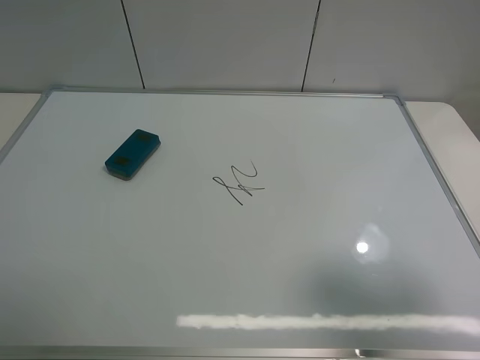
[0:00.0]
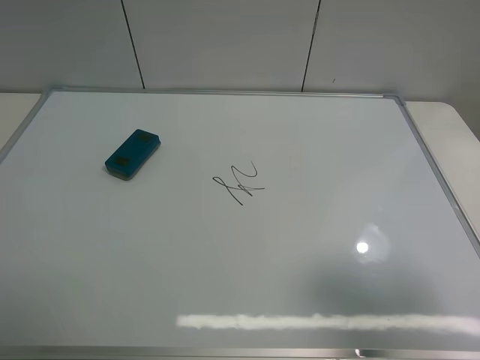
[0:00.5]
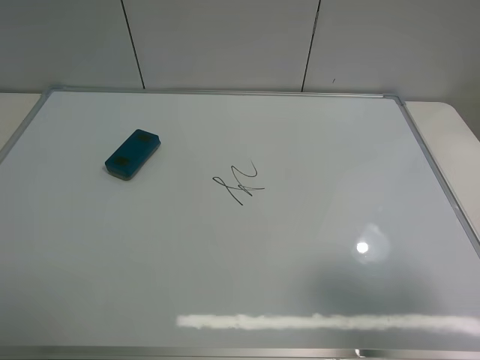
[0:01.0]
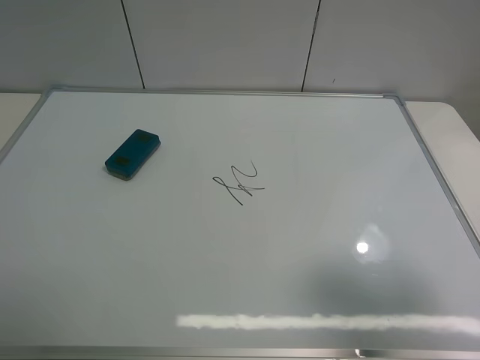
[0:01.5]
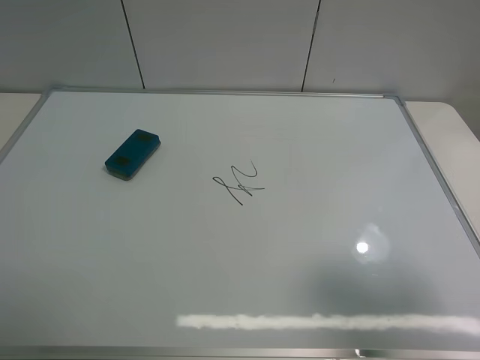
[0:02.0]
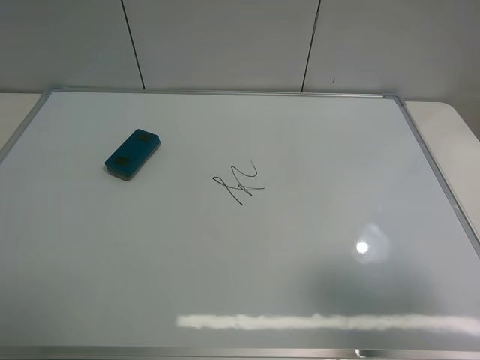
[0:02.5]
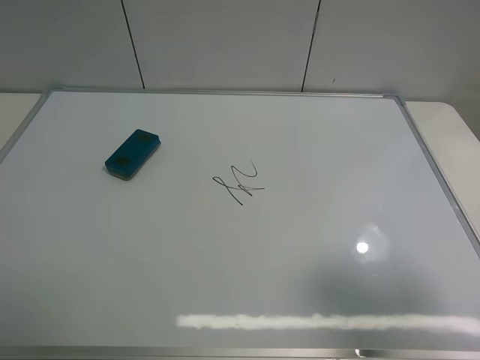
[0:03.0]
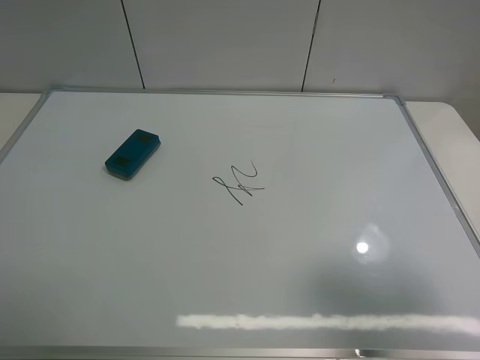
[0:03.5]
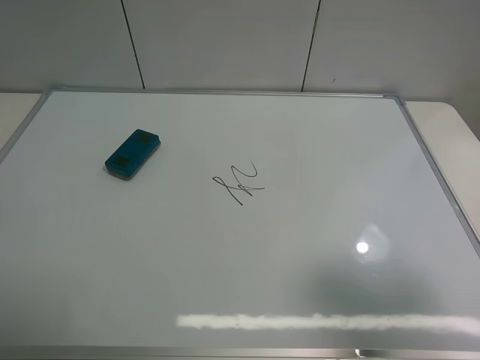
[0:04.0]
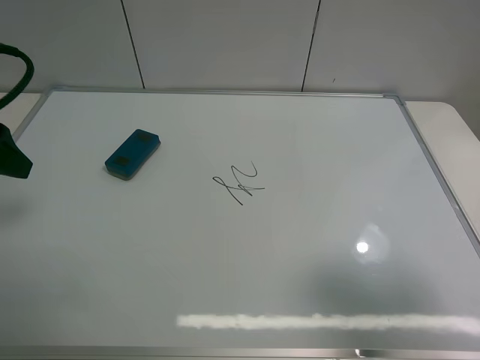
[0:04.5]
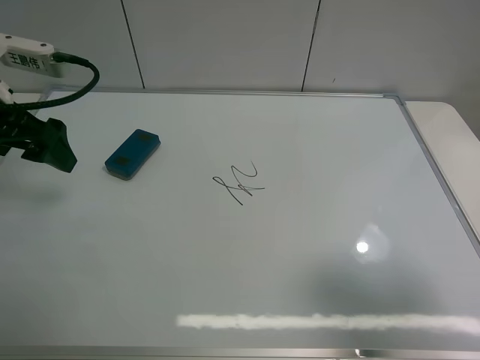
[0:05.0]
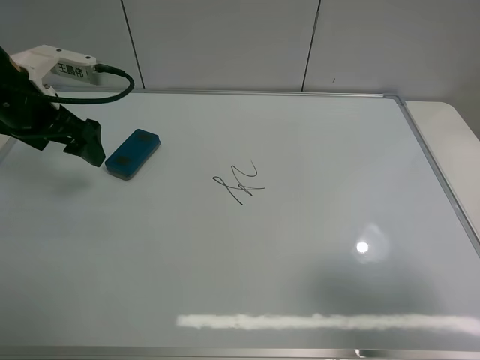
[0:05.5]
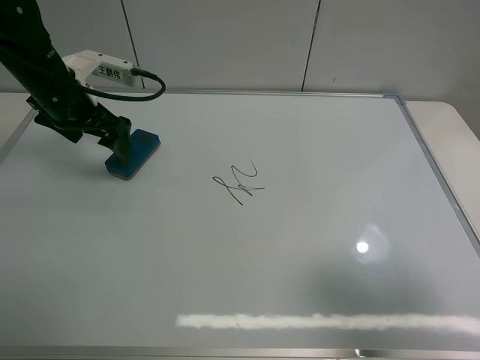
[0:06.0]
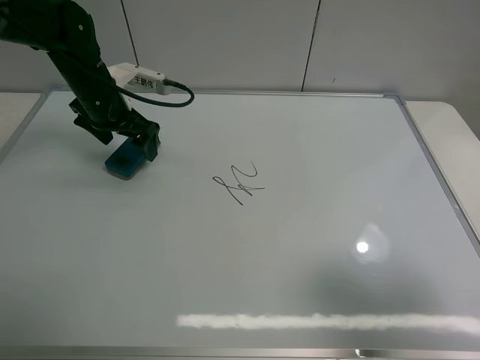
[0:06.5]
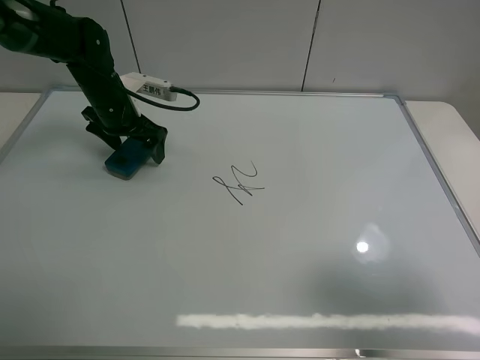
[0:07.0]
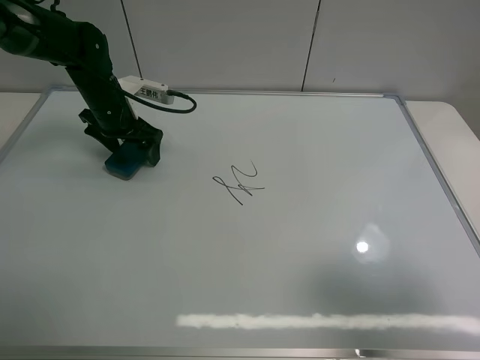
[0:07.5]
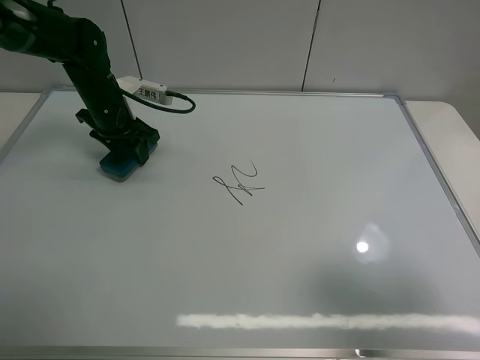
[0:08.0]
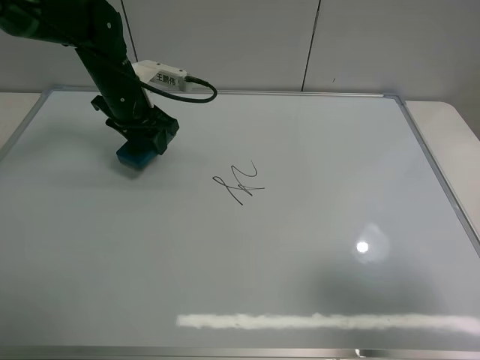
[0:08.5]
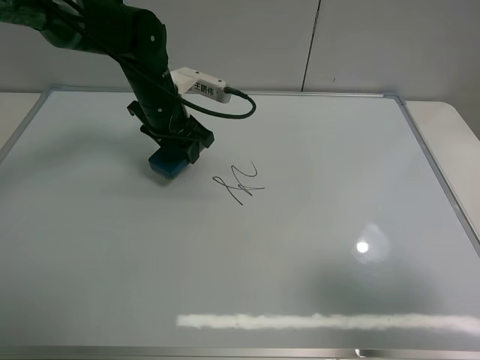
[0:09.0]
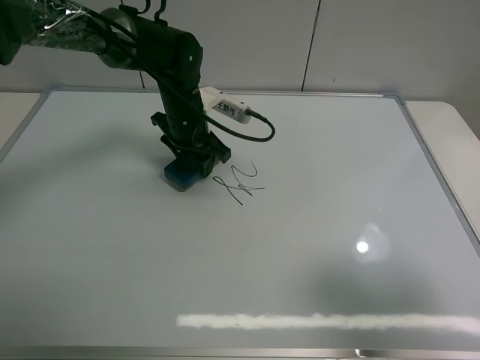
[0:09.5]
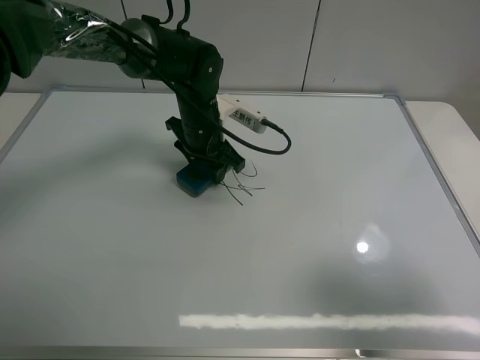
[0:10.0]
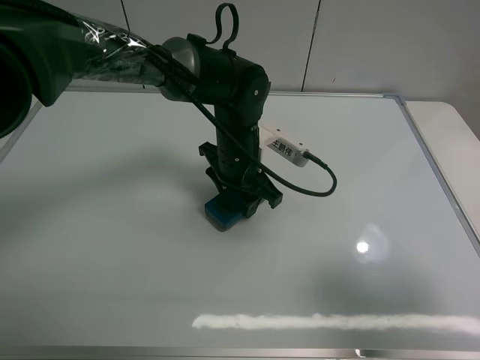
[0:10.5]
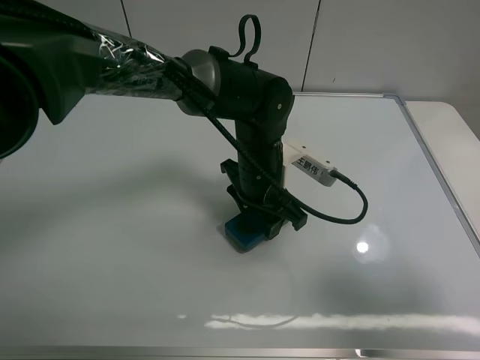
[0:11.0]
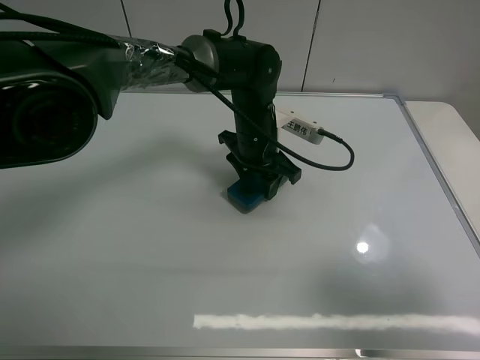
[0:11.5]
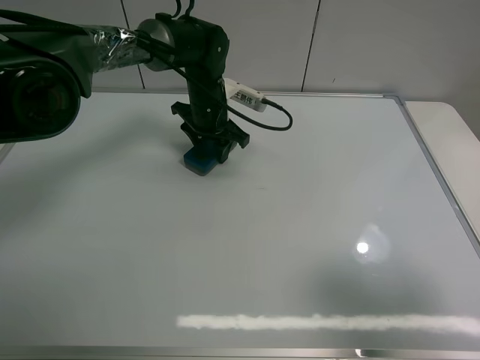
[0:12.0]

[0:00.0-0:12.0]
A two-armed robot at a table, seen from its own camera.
Task of the whole recording: use the left claw to pick up the whiteboard eraser, wipe the notes on the whiteboard clean, and then put them back in place.
Step, 0:00.0 to 0:07.5: Grasp the eraser with the left gripper.
0:00.0 to 0:02.0: The two grippers keep their place.
0:04.0 to 0:06.0: The left gripper moves forward and downward, roughly 25 cm.
0:06.0 to 0:08.0: The left gripper goes some 10 cm downward and forward, and closes its fingers.
0:08.0 to 0:10.0: The left gripper travels to the right by about 15 cm.
0:10.0 to 0:12.0: The left gripper goes approximately 5 cm forward.

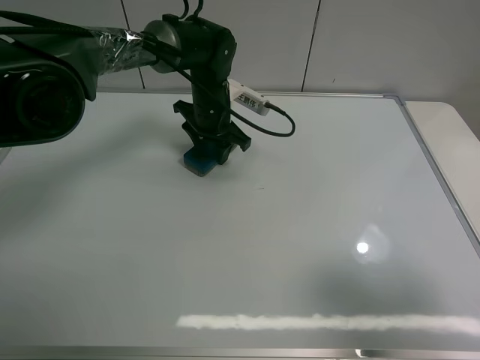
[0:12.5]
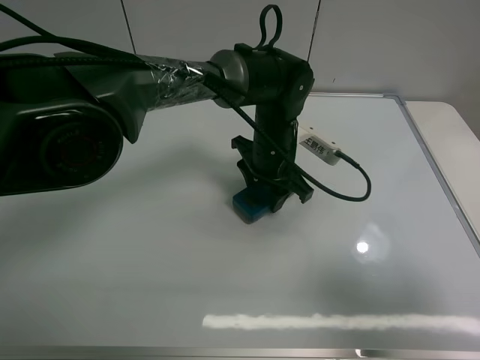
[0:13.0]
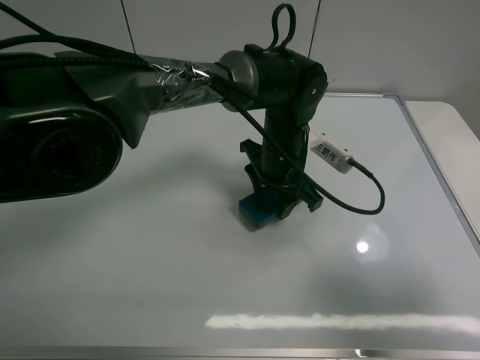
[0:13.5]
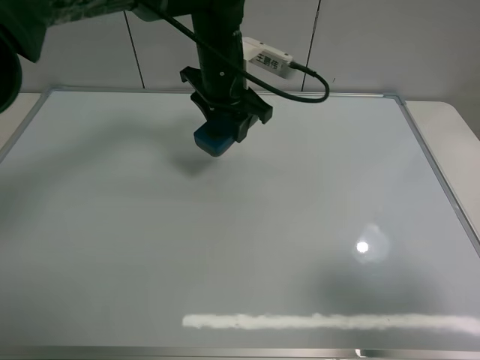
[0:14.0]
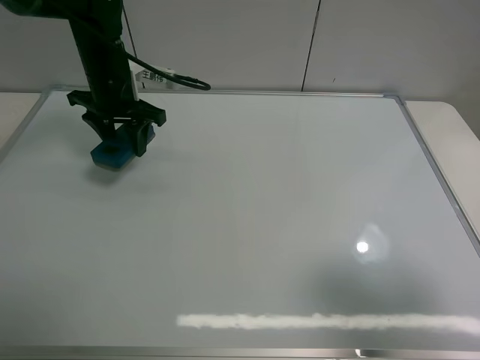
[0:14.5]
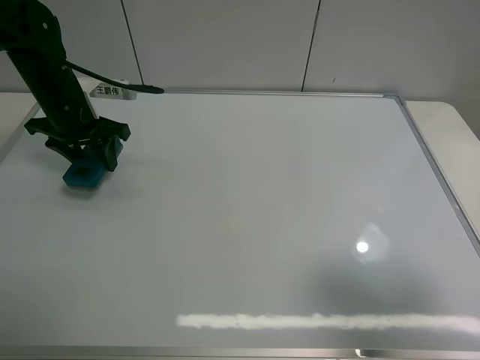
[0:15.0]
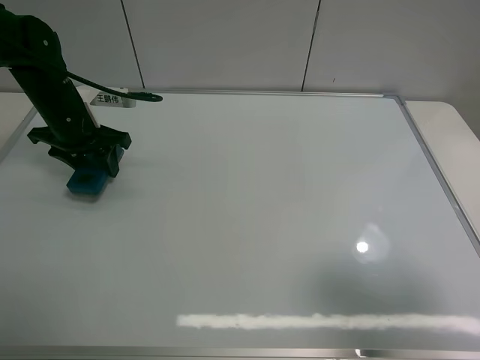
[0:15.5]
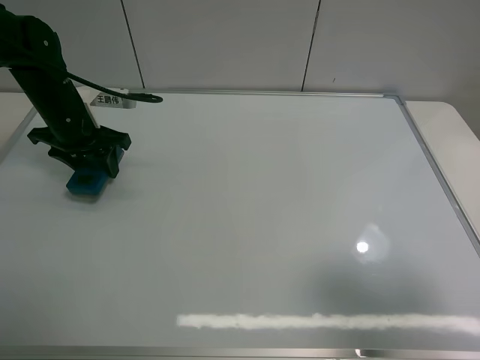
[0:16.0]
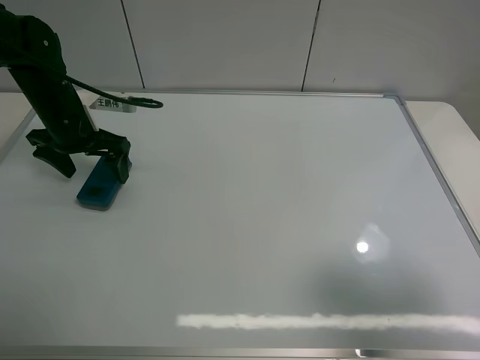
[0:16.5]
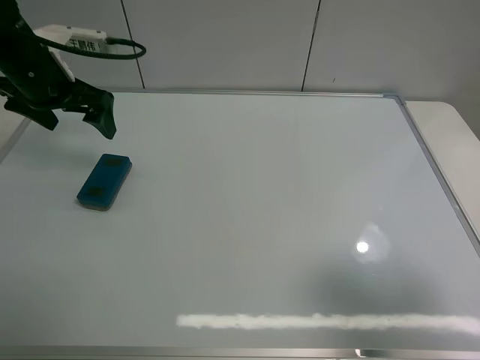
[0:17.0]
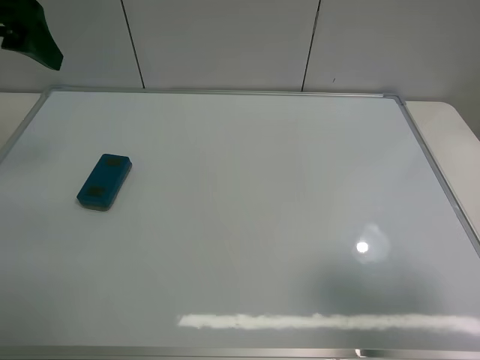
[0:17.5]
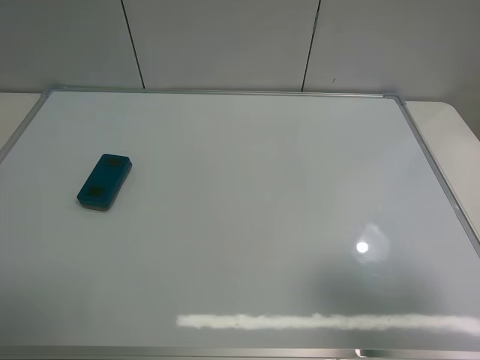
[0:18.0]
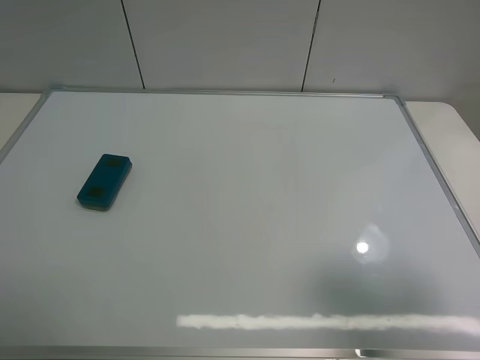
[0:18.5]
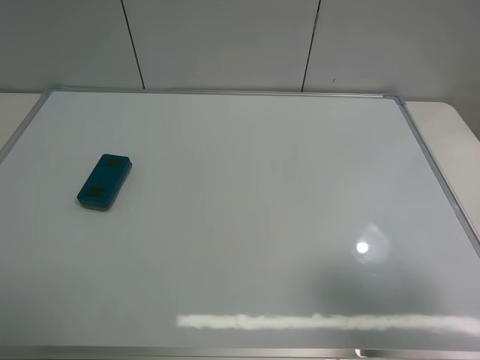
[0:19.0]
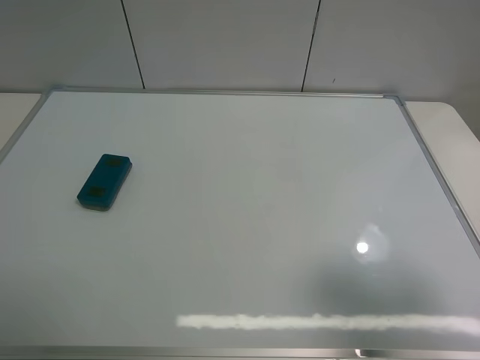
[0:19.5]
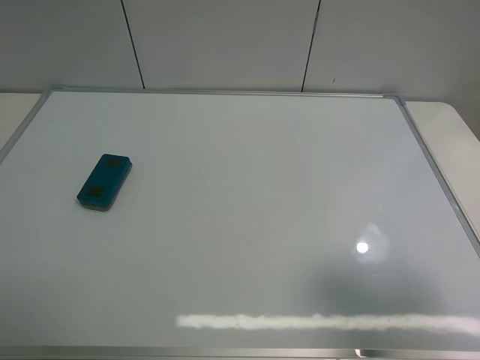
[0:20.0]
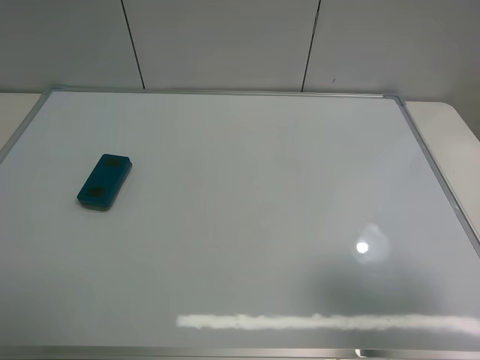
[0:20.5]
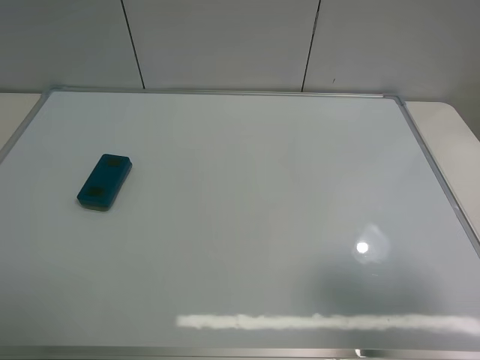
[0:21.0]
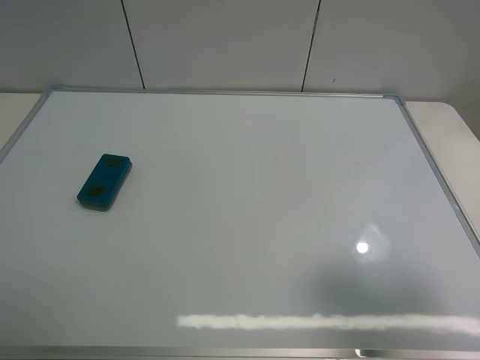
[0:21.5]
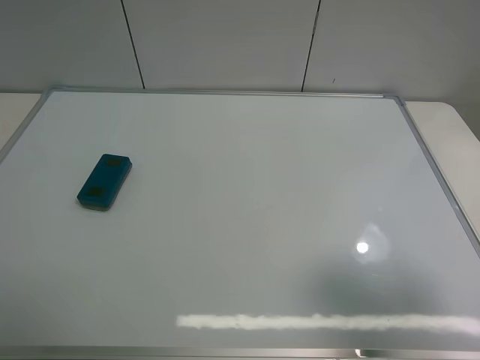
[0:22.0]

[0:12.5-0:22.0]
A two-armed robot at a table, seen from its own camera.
Task of the whole recording: use the left claw to pick up the whiteboard eraser, wipe the notes on the whiteboard clean, and then put them back in place.
Step, 0:14.0 to 0:16.5: Place the eraser with the left gripper.
0:12.5 to 0:14.5: The left gripper heads to the left and upward, covering some 20 cm.
0:14.5 to 0:16.5: The left gripper goes roughly 5 cm to the left, and opens its fingers.
0:16.5 to 0:18.0: The left gripper travels backward and upward by about 30 cm.
0:20.0 to 0:22.0: The two grippers keep their place.
